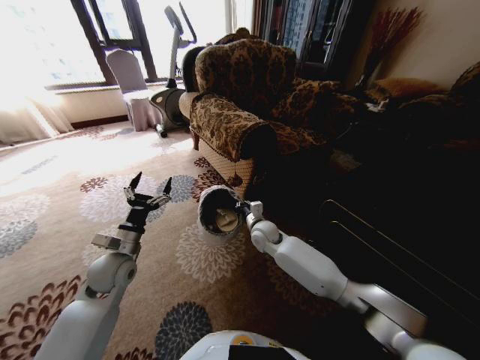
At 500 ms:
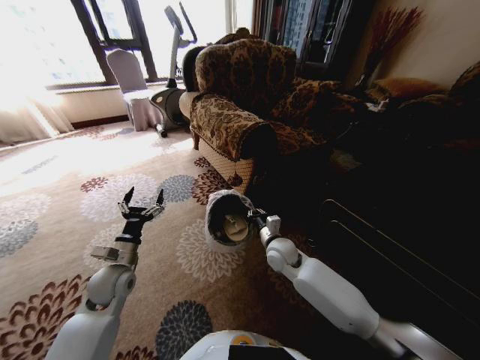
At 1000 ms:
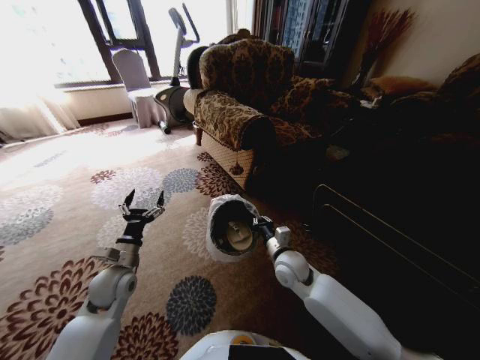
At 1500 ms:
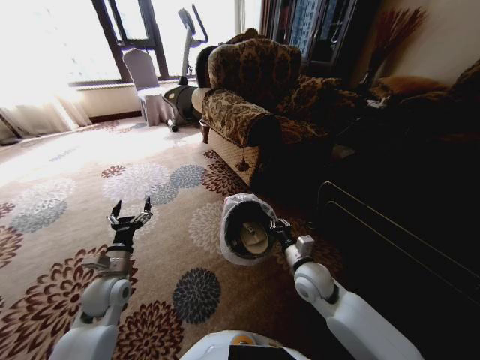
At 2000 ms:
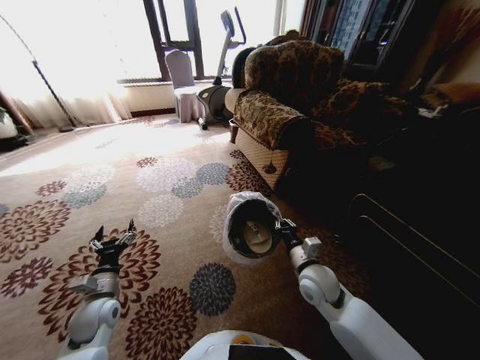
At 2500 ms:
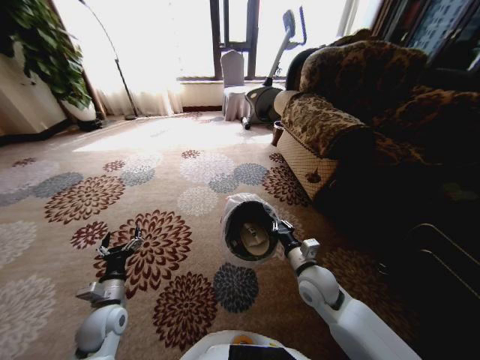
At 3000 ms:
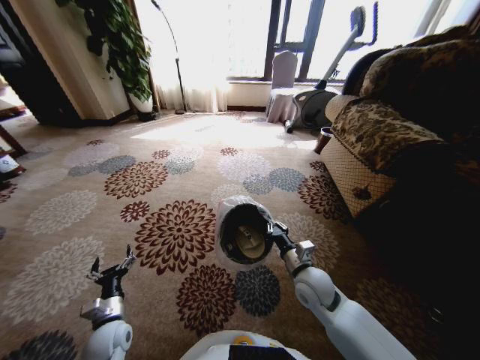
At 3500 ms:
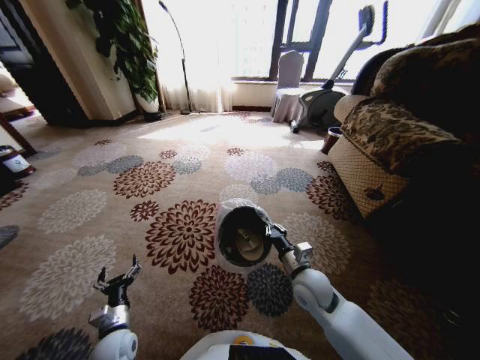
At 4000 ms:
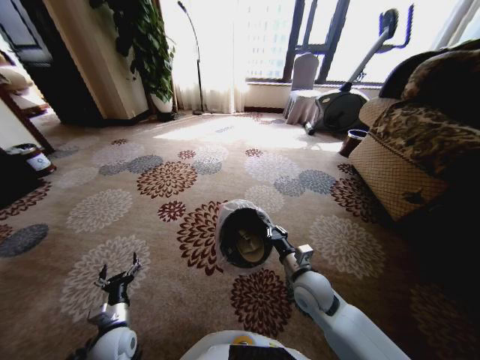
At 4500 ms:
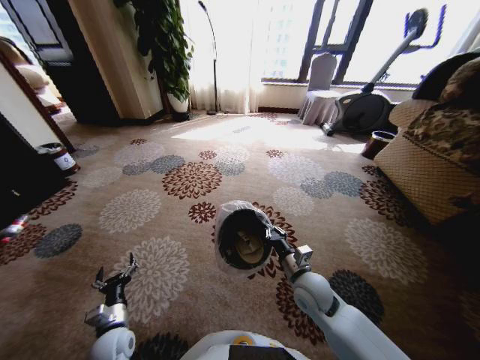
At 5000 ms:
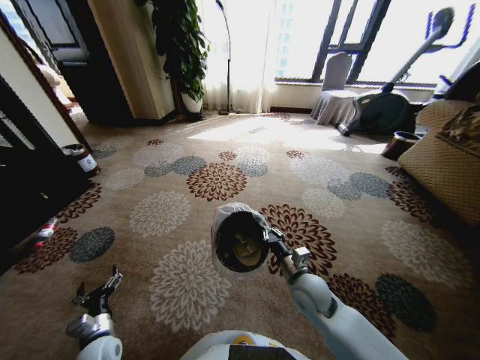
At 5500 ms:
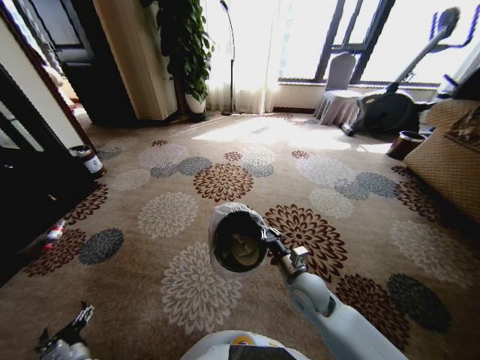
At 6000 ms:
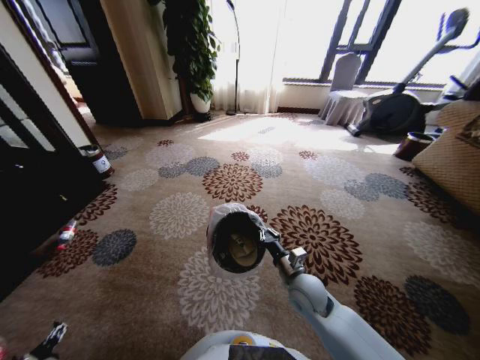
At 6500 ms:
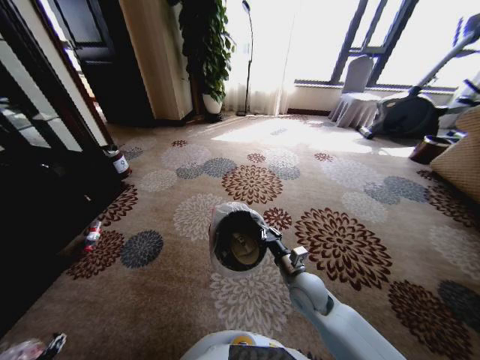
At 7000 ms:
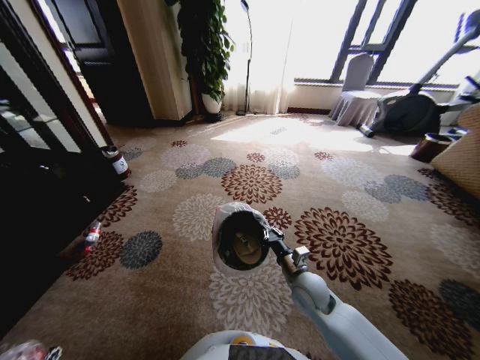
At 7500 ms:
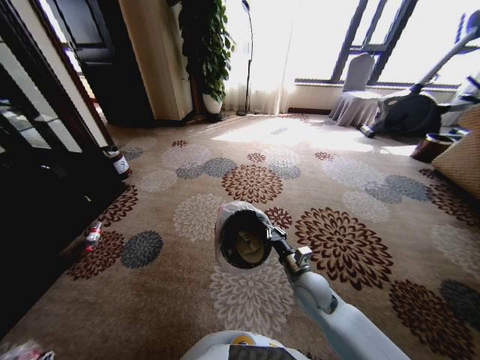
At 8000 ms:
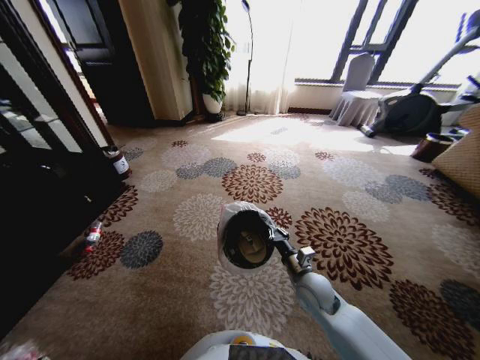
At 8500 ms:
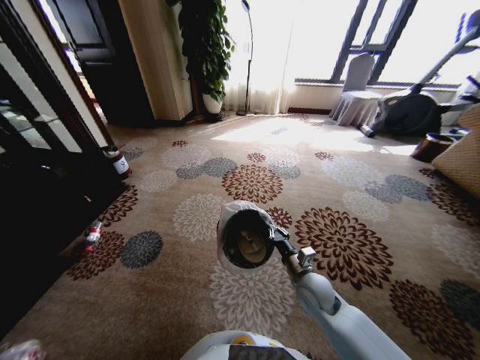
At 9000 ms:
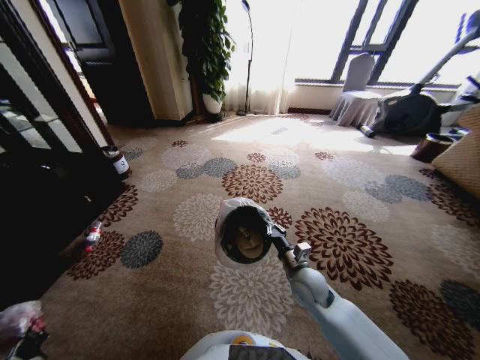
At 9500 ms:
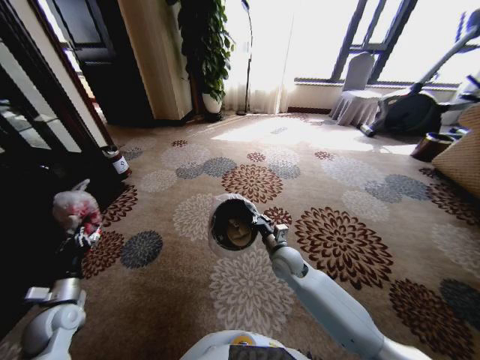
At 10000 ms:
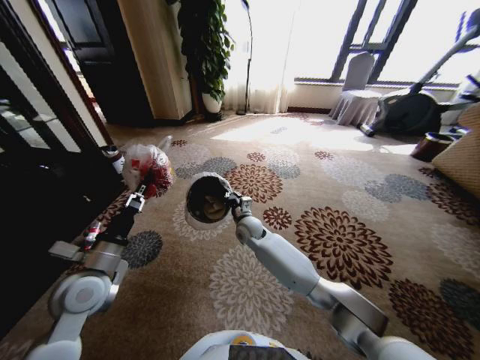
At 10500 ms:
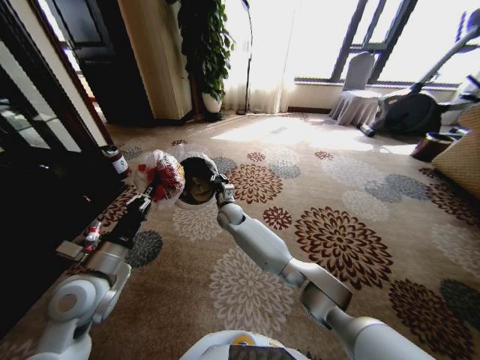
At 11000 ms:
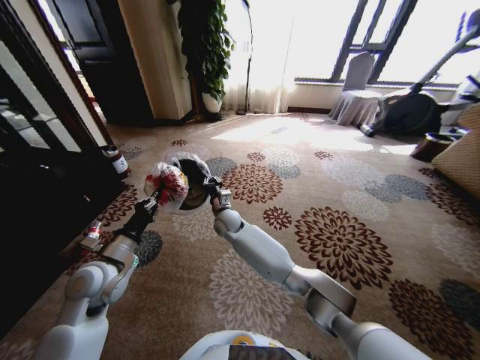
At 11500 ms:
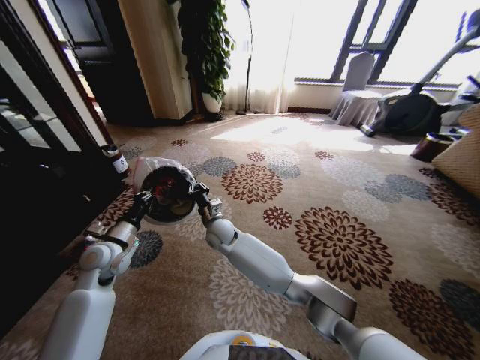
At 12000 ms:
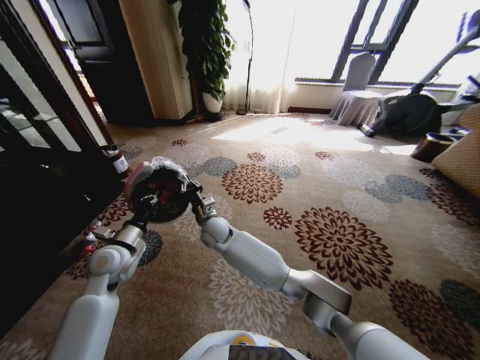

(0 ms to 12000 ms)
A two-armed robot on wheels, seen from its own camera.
Task of the whole recording: Pick up the trash from the ground and place it into the trash bin.
0 ms - 2000 ms: The left gripper is displaced downward, backward and to the left by some 15 cm. Meanwhile the right gripper travels backward and to the right by roughly 20 cm.
2000 ms - 4000 ms: The left gripper moves downward and backward, about 10 cm.
4000 ms - 6000 ms: The left gripper moves to the left, backward and downward, about 20 cm.
6000 ms - 8000 ms: The left gripper moves downward and to the left, some 10 cm.
8000 ms - 10000 ms: The right gripper goes approximately 25 cm forward and to the left; the left gripper moves upward, to the right and forward, roughly 50 cm, and closes up.
10000 ms - 12000 ms: The left gripper moves forward, about 10 cm. Meanwhile the right gripper travels to the left by approximately 10 cm.

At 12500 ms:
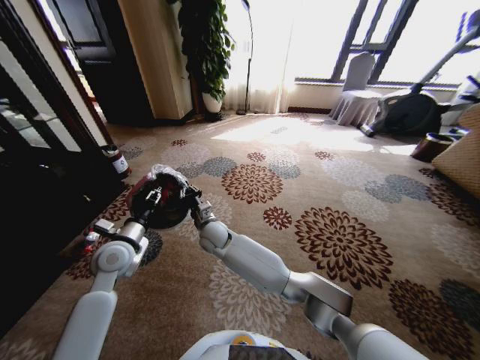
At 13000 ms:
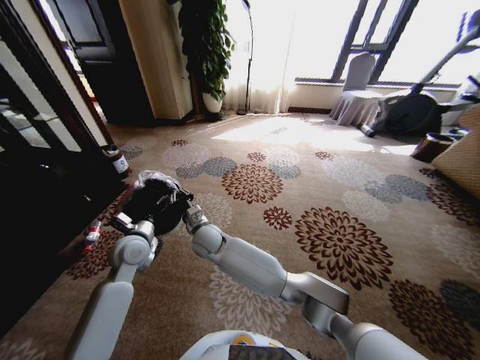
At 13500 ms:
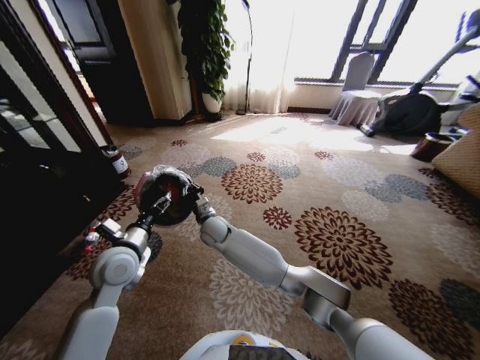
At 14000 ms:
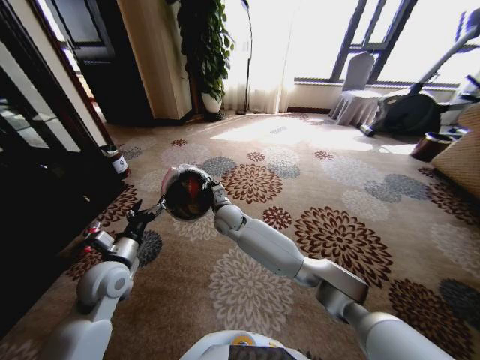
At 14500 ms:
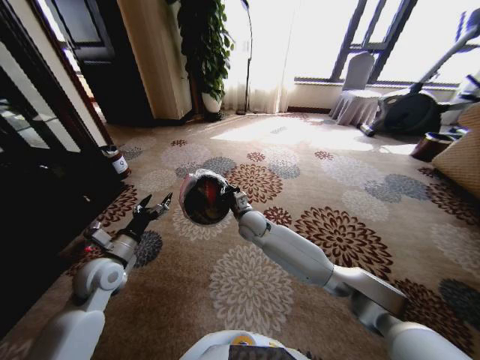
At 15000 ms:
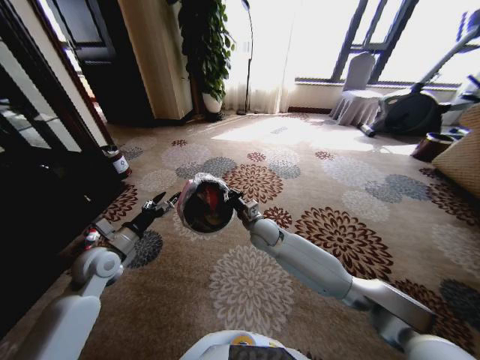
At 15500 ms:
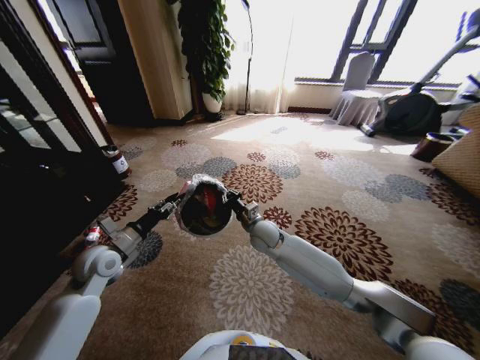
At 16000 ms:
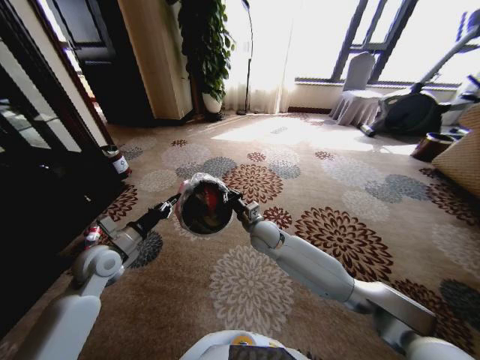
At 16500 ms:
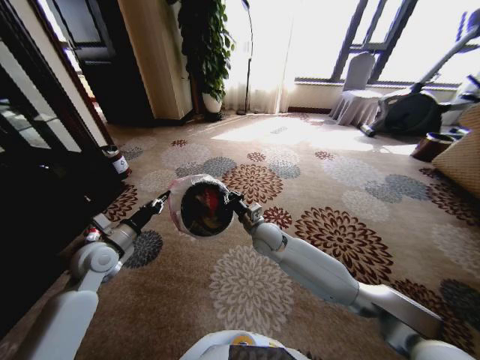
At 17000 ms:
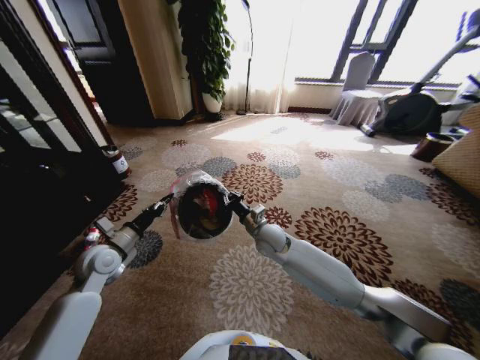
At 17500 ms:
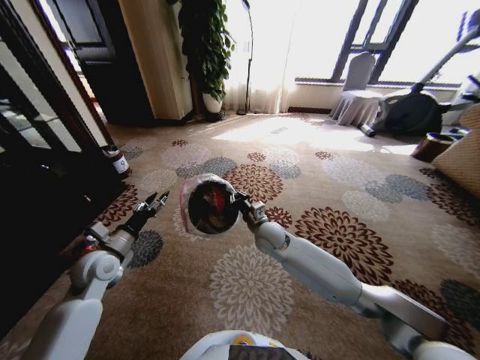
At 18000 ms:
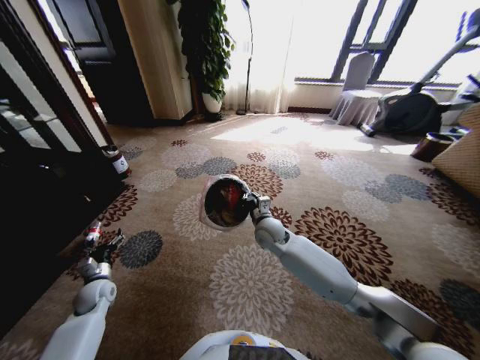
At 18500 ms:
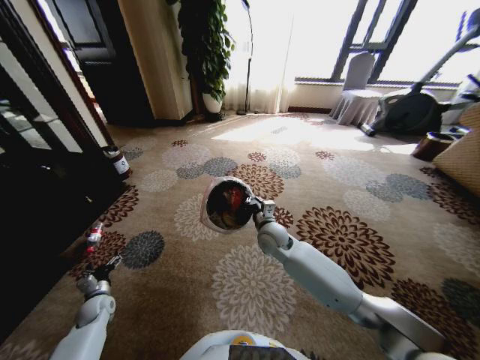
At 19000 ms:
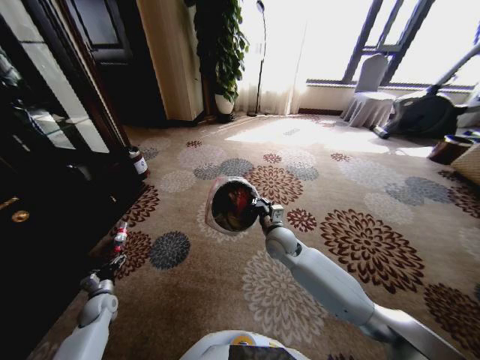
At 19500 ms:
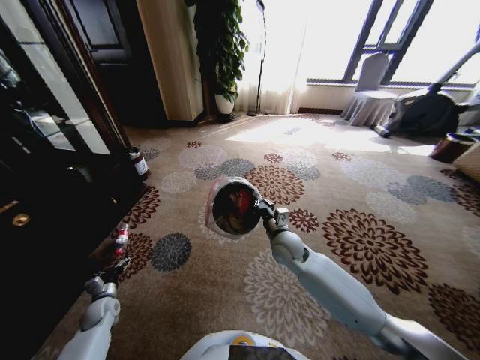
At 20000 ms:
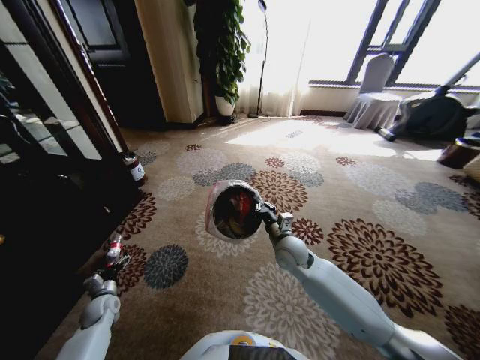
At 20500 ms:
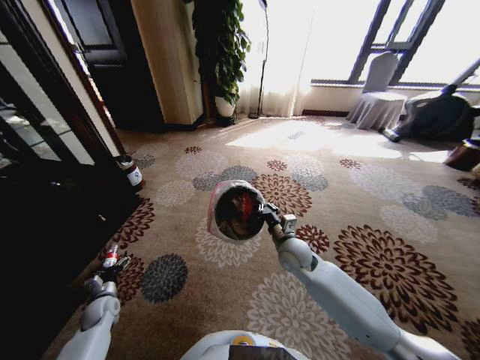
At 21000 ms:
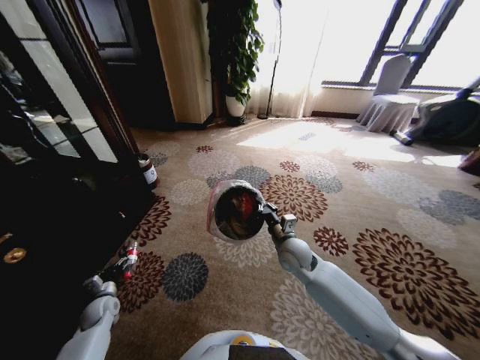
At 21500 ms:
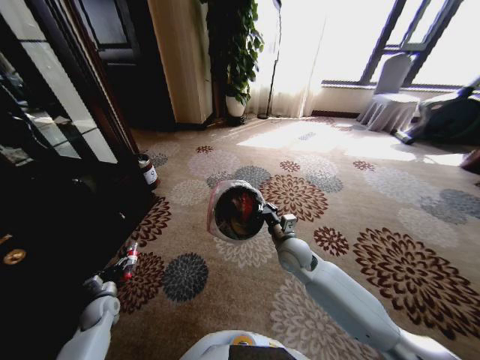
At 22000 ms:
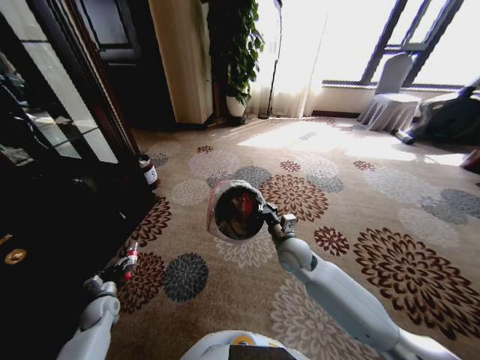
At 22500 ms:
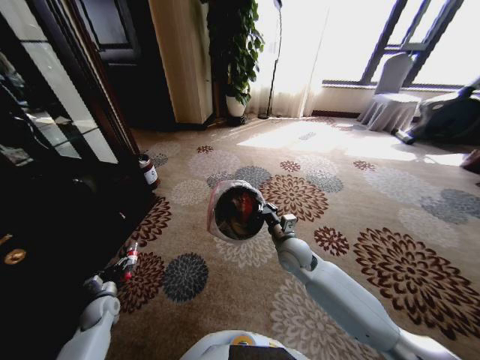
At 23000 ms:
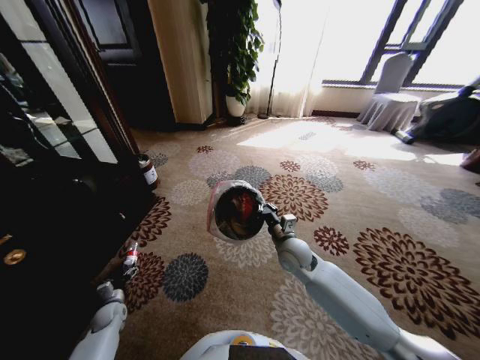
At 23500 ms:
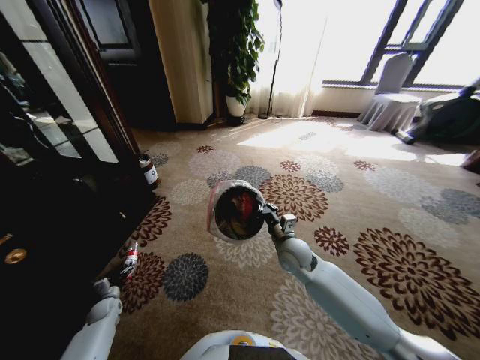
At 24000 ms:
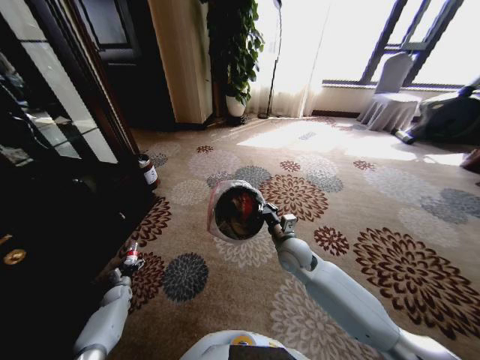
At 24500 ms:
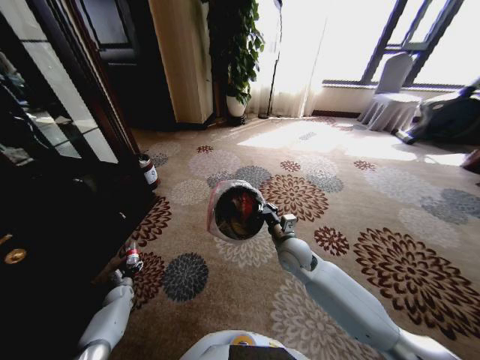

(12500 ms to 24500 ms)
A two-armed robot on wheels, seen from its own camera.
Task of the whole recording: Pick up the trash from the ground and place it into the trash bin.
12500 ms - 14500 ms: The left gripper opens its fingers; the right gripper shifts approximately 15 cm to the right.
14500 ms - 16500 ms: The left gripper closes. The right gripper moves some 5 cm.
16500 ms - 18500 ms: The left gripper shifts about 30 cm downward and to the left, and opens.
18500 ms - 20500 ms: The right gripper travels to the right by about 5 cm.
22500 ms - 24500 ms: The left gripper moves downward and forward, roughly 10 cm.

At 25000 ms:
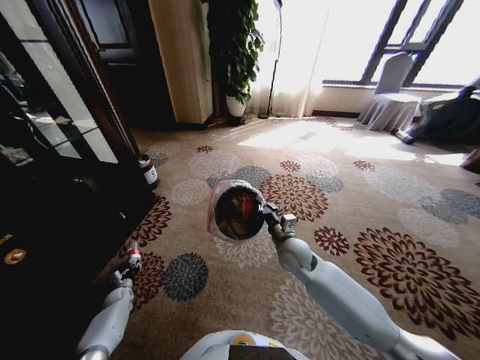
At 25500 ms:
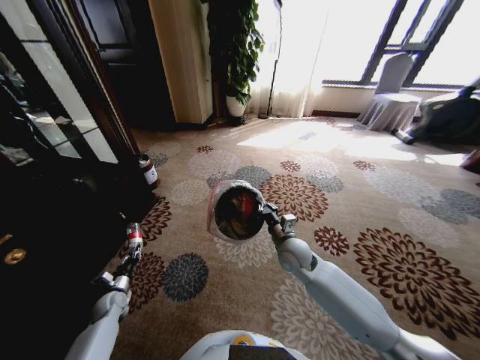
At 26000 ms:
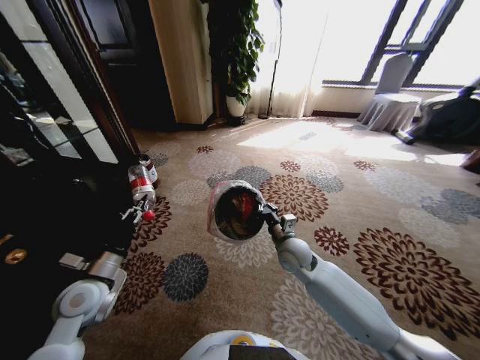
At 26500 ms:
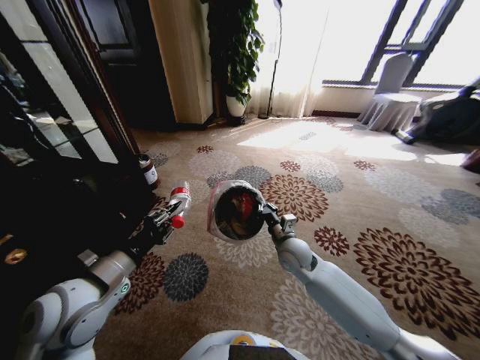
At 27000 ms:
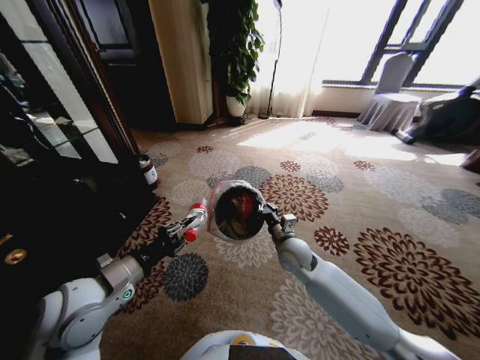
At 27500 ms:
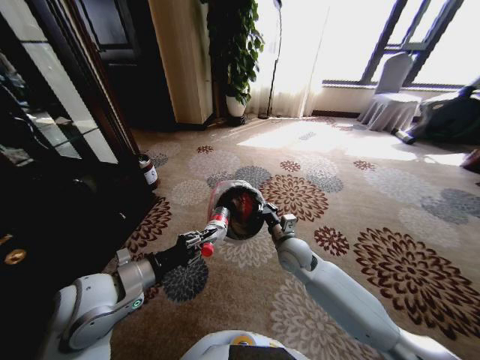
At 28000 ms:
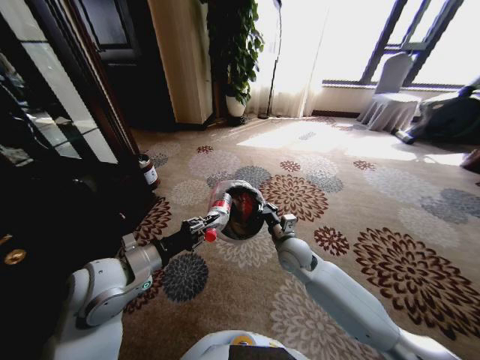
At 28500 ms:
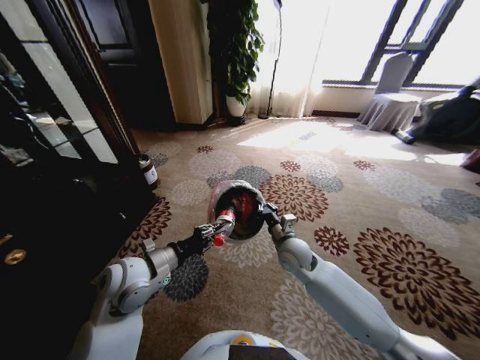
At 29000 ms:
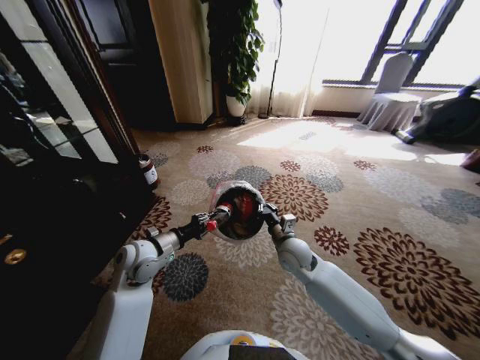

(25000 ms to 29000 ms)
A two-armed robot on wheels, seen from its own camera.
Task of the whole recording: Pick up the trash from the ground and place it into the trash bin.
25000 ms - 27000 ms: The left gripper shifts approximately 50 cm upward and to the right.
27000 ms - 29000 ms: The left gripper travels forward and downward by some 15 cm.
